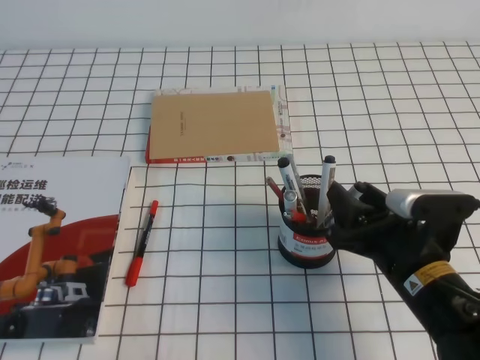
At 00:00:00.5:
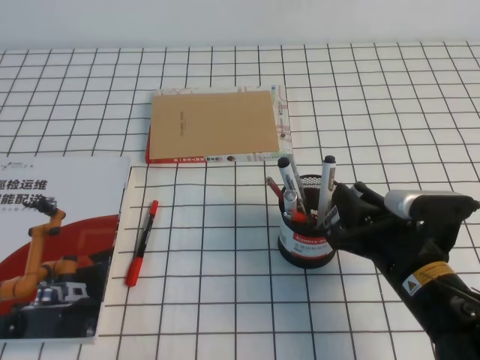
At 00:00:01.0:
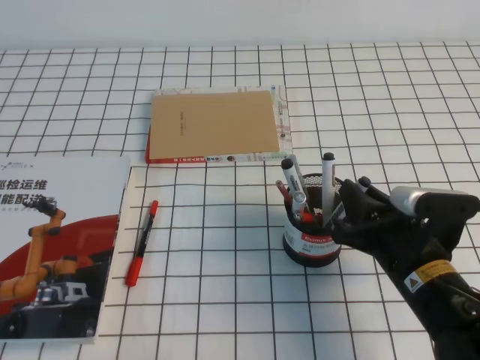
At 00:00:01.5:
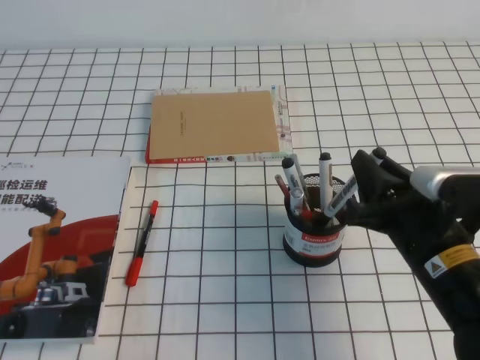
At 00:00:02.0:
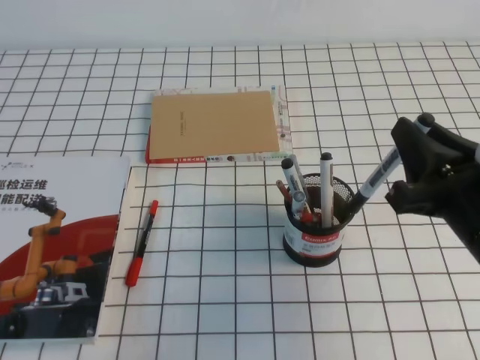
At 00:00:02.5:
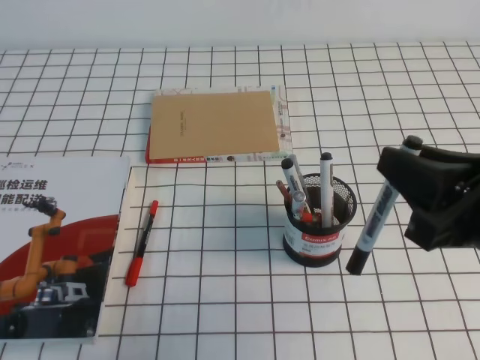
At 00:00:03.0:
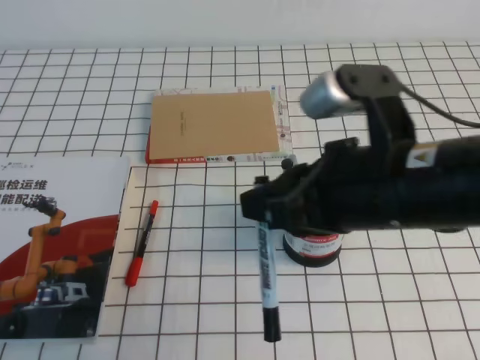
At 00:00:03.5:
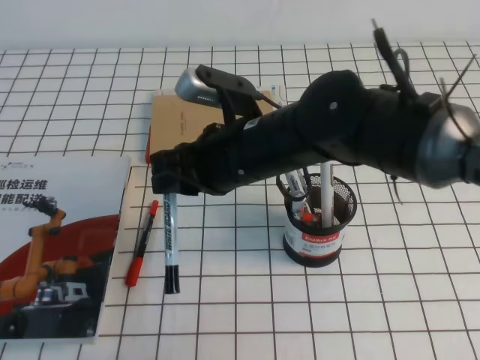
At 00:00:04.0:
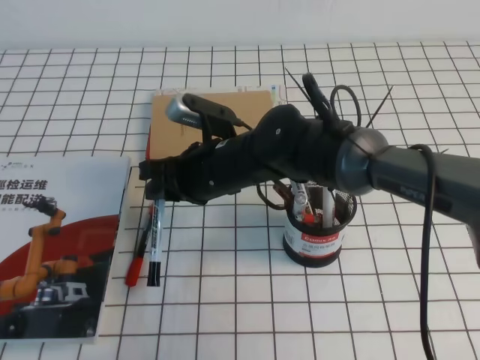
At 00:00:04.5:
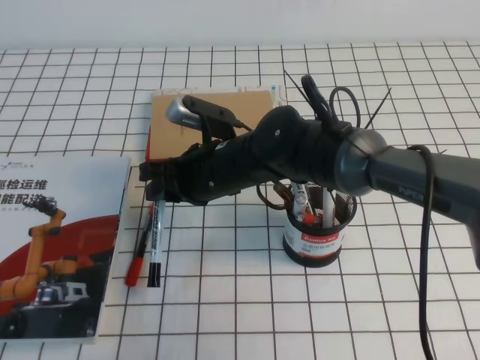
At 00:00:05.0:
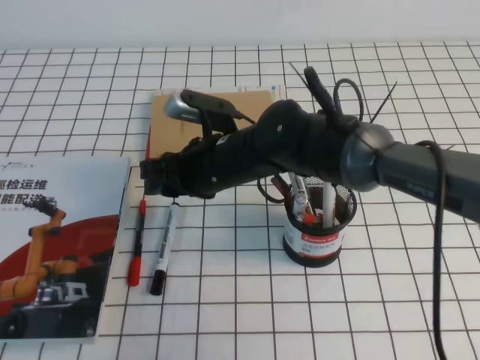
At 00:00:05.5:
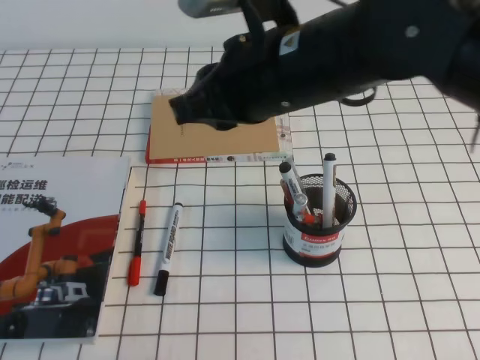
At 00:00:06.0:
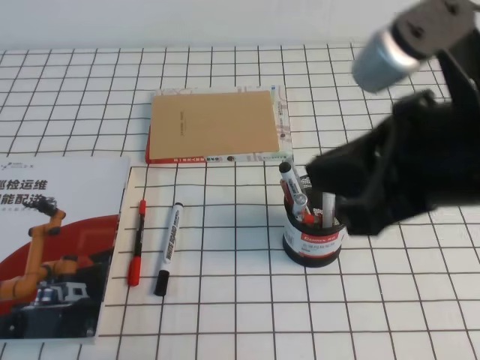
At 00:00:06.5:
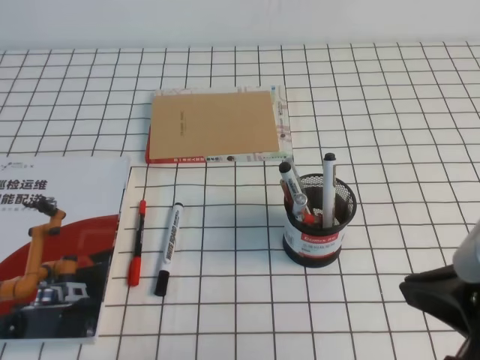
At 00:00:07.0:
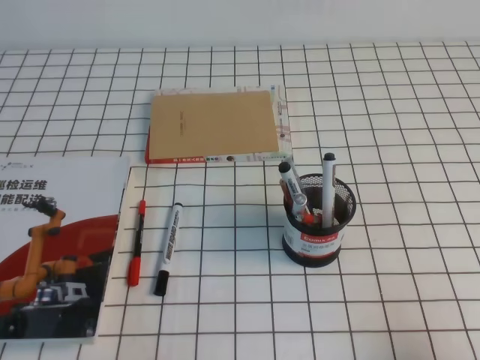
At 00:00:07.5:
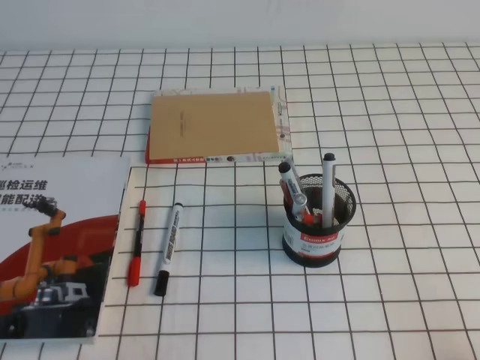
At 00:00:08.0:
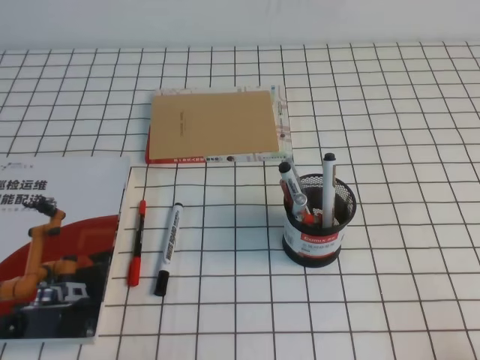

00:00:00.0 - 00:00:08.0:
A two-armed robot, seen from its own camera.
Step, 00:00:00.0 - 00:00:08.0: Pick up the pen from the pen holder.
00:00:00.0 - 00:00:02.0: The right gripper heads upward, covering approximately 10 cm, and closes.
00:00:02.0 - 00:00:04.0: The right gripper goes approximately 25 cm to the left and forward.
00:00:04.0 - 00:00:06.0: The right gripper travels upward, to the right and backward by roughly 30 cm, and opens, then closes once more.
00:00:06.0 - 00:00:08.0: The right gripper moves downward, to the right and backward, approximately 30 cm.
